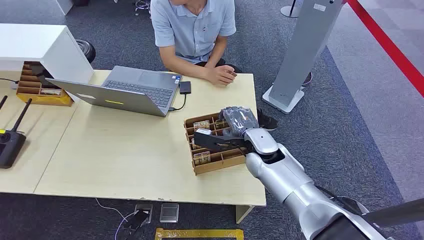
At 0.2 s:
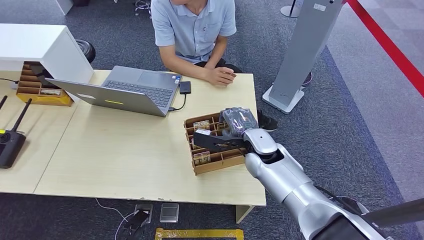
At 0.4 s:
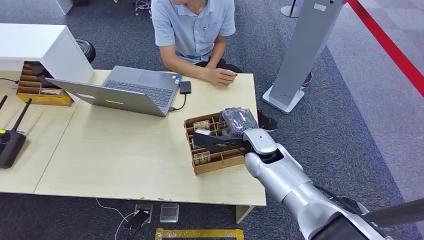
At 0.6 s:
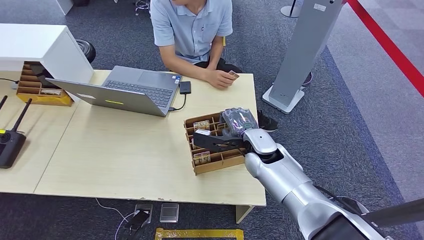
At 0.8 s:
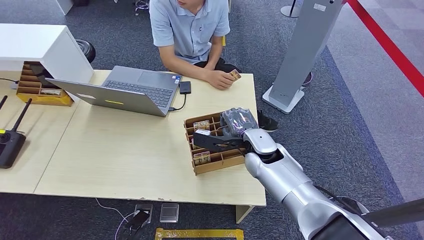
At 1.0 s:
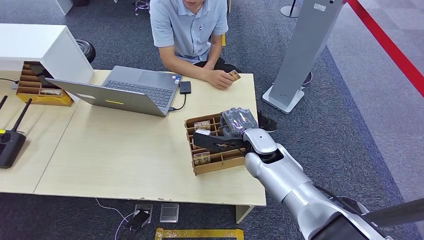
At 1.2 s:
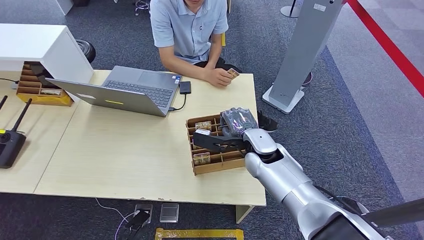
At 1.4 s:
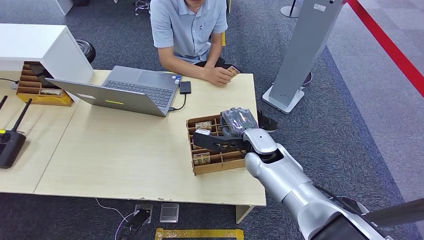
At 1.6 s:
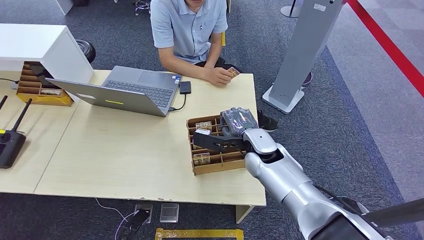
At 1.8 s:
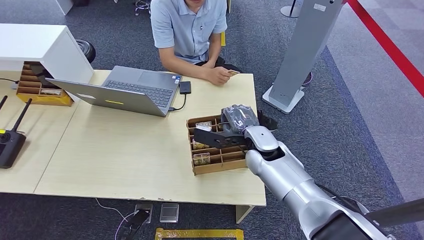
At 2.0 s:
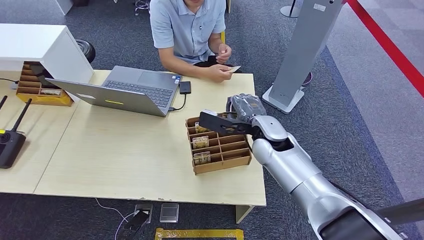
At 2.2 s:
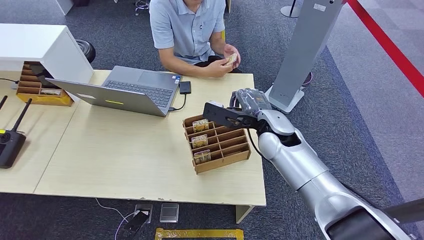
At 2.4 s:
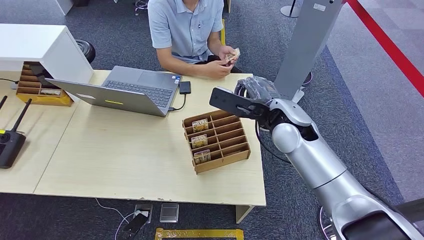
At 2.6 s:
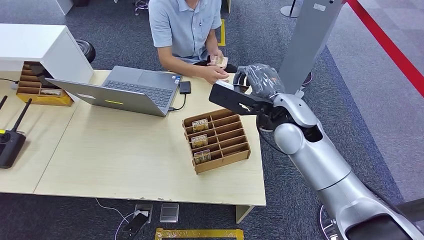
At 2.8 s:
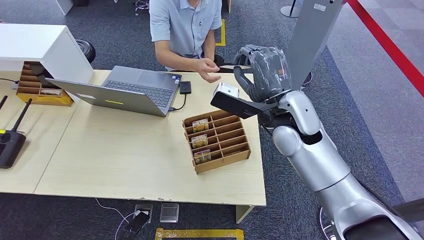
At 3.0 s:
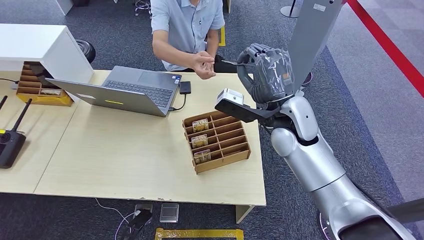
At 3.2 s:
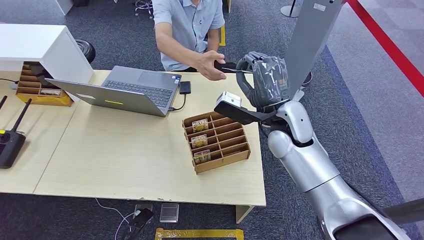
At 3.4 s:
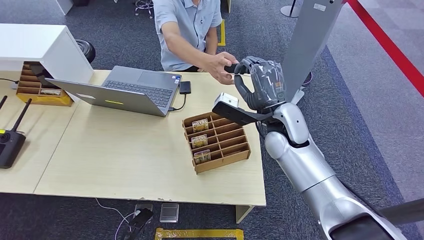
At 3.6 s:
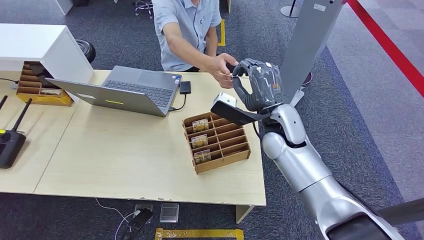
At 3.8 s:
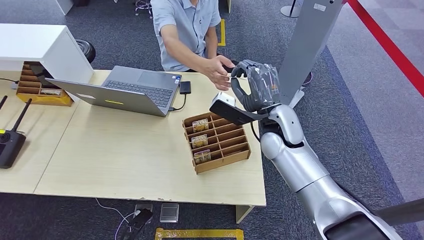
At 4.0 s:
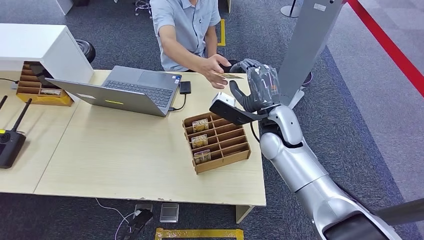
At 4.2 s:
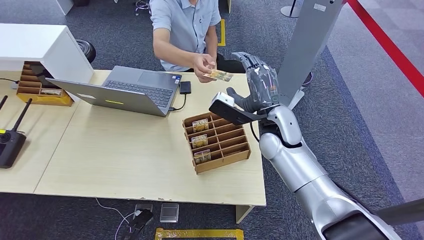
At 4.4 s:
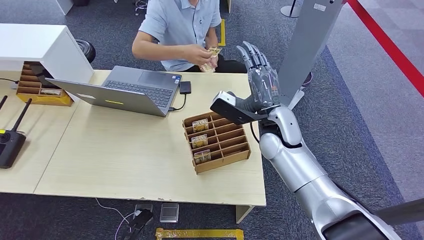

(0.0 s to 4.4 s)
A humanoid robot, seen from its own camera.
Step, 0.0 s - 2.4 s: Pick up the room card from the card holder.
Step, 3.2 s - 4.4 s: Hand the room card to the target.
1.4 s - 3.0 s: The right hand shifts some 10 cm upward.
3.0 s - 4.4 s: The right hand moves about 5 cm.
